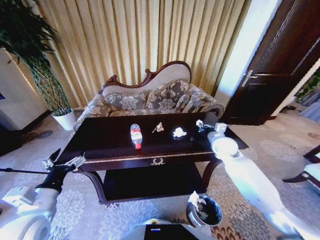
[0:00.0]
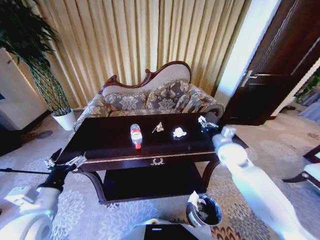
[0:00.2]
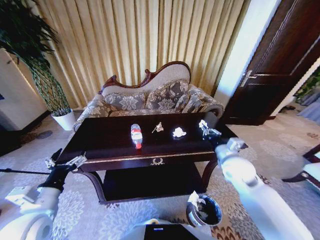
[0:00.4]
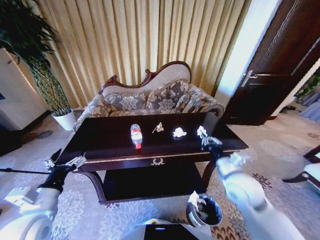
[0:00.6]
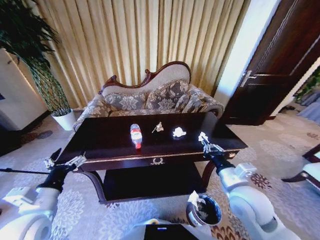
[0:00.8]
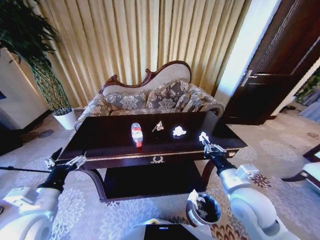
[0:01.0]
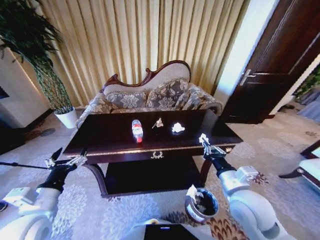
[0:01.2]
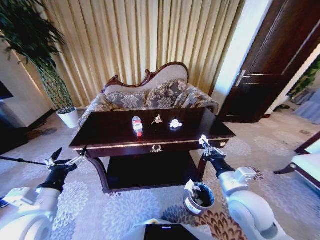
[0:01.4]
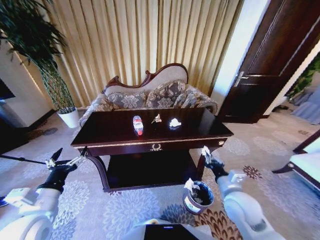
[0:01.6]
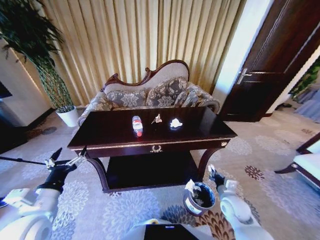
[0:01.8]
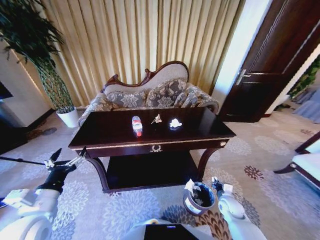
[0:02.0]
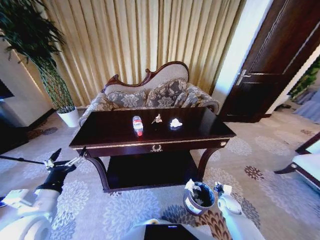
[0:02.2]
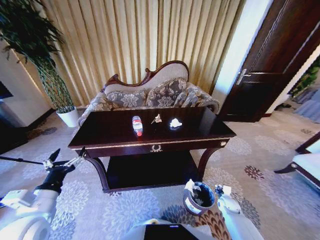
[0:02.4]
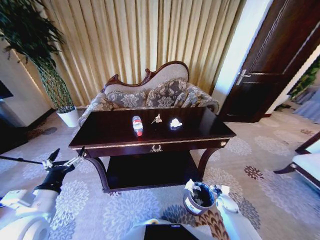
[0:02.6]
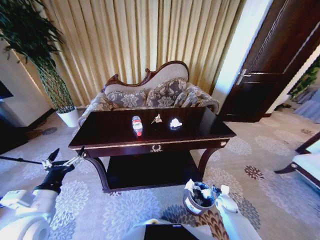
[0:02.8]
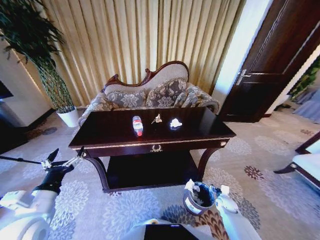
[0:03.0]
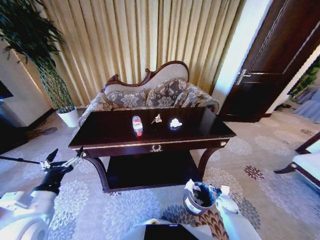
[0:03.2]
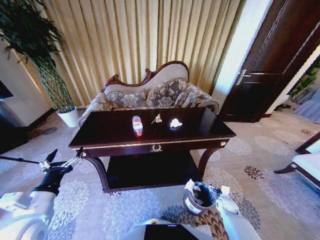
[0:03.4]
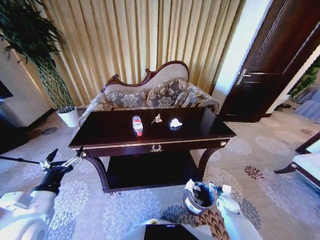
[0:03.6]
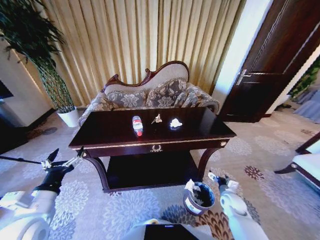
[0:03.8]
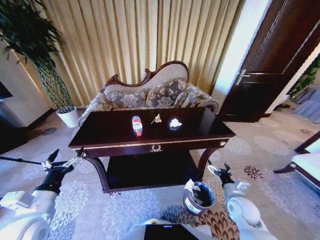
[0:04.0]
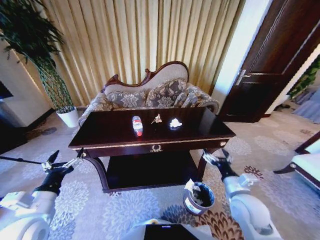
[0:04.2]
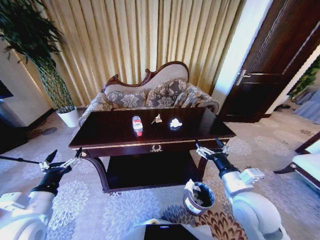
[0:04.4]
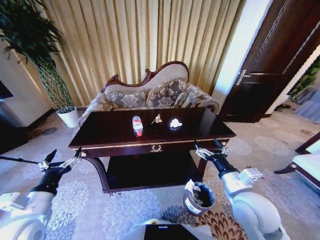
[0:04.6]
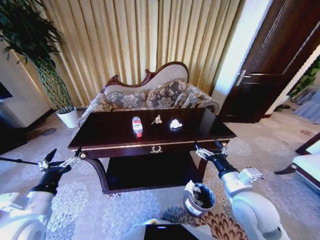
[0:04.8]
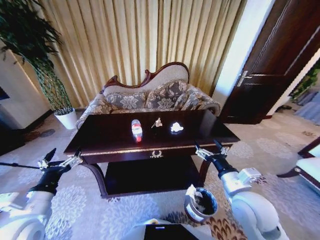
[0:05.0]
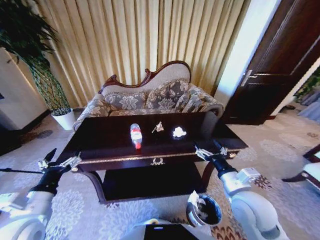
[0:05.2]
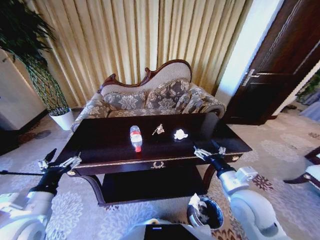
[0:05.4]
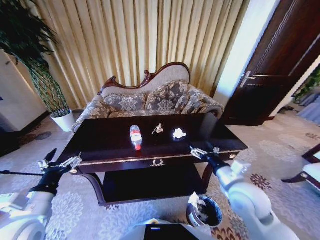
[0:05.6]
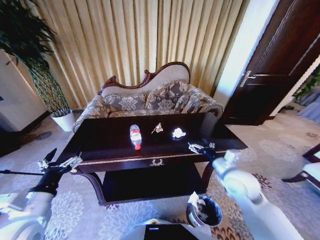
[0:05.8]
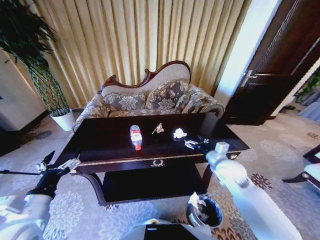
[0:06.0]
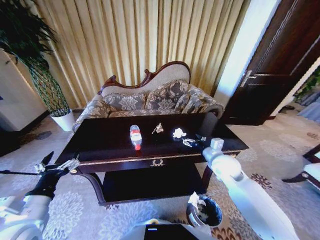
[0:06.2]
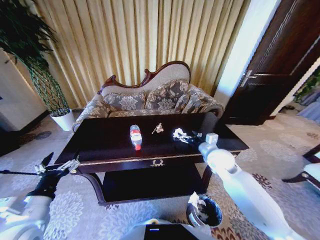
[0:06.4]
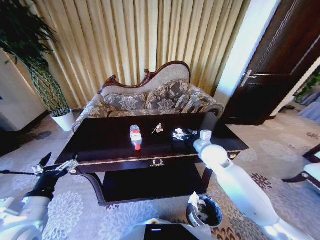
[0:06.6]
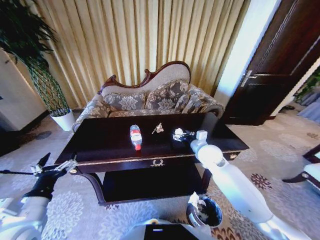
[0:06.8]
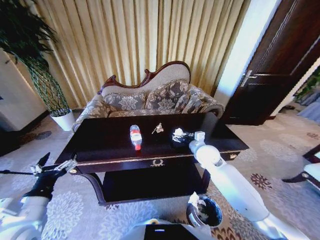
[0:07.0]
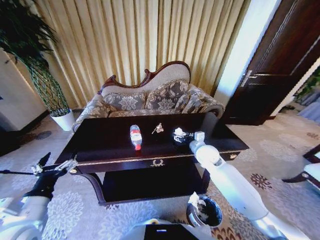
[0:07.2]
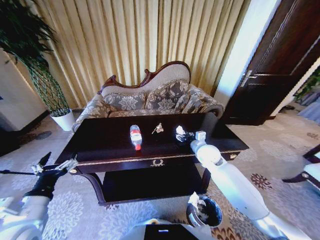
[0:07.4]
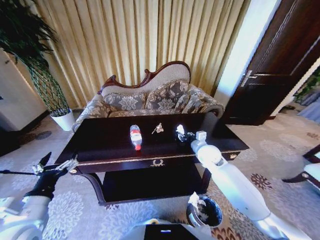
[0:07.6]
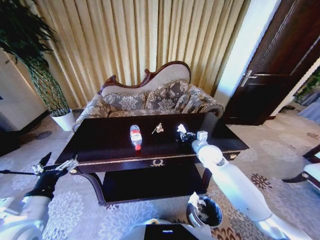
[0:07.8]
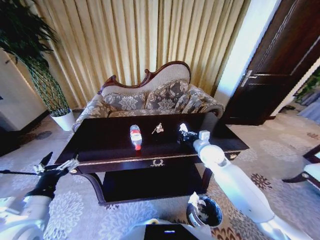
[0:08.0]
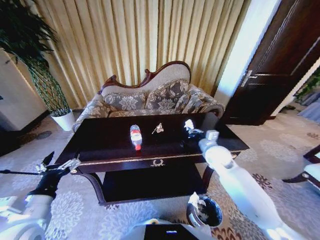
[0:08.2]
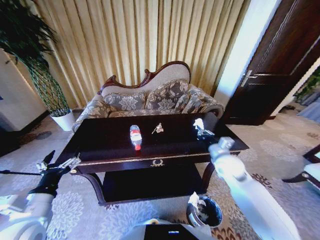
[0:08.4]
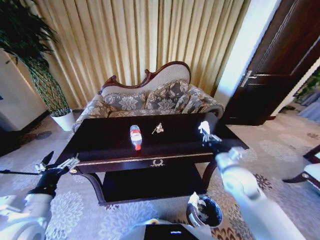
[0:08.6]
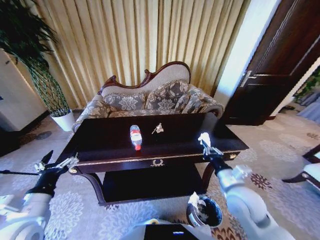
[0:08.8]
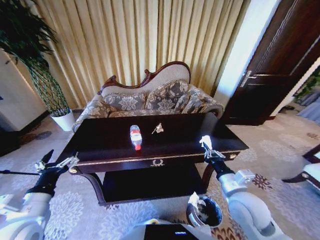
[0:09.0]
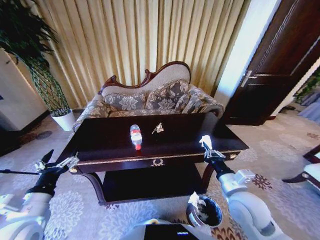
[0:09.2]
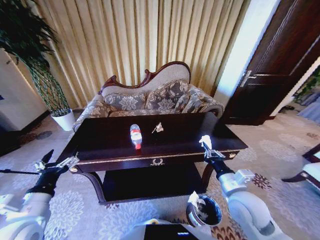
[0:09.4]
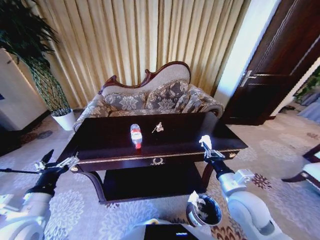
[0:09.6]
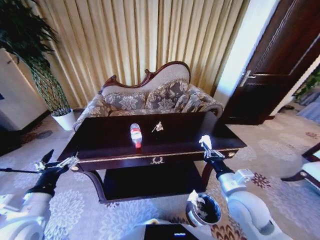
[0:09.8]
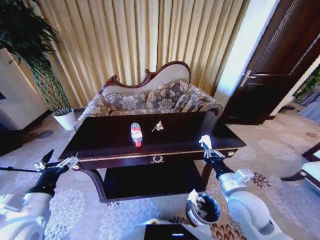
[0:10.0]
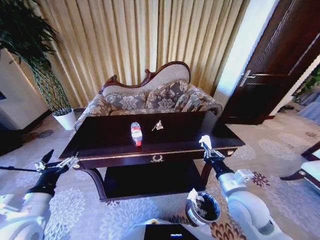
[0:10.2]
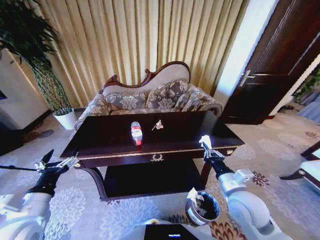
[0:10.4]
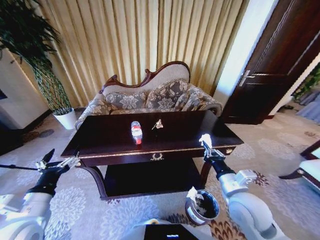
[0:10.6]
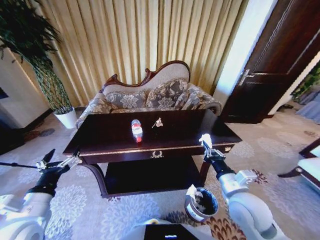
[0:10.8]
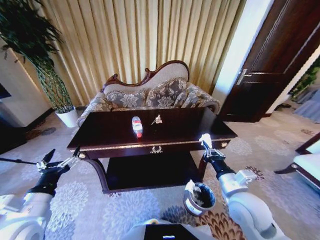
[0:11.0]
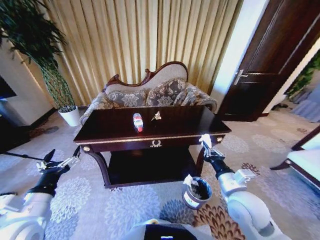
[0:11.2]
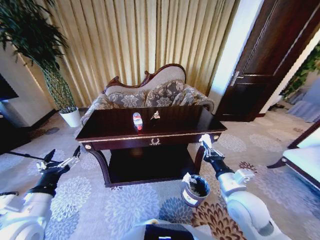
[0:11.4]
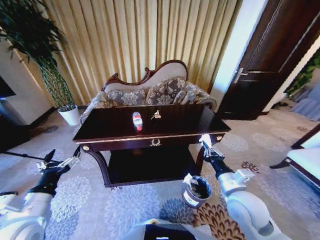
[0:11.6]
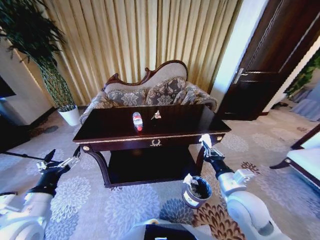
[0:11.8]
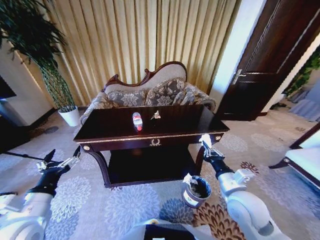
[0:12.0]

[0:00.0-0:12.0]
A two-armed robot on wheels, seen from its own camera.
Task of the whole recording: Move to the front of the table and place the trash on the table into the trash bin.
0:00.0 to 0:01.6: The right gripper travels backward by approximately 20 cm.
0:01.6 to 0:03.0: The right gripper travels downward and to the right by some 30 cm, and opens.
0:03.0 to 0:04.4: The right gripper goes approximately 35 cm upward.
0:04.4 to 0:06.0: The right gripper is displaced forward by some 15 cm.
0:06.0 to 0:07.6: The right gripper heads forward, covering approximately 10 cm, and closes its fingers.
0:07.6 to 0:09.0: The right gripper travels backward by roughly 20 cm, and closes up.
0:09.0 to 0:10.4: Neither gripper changes place.

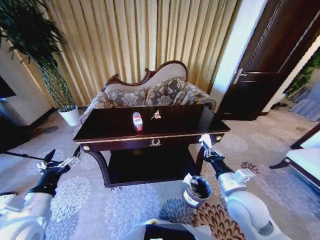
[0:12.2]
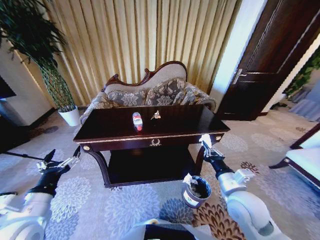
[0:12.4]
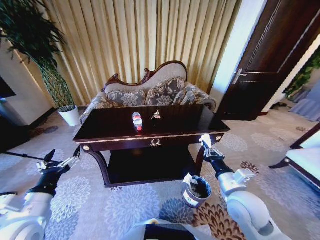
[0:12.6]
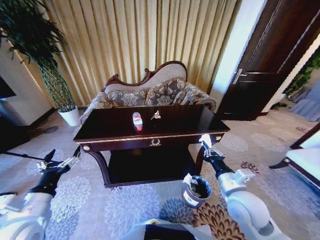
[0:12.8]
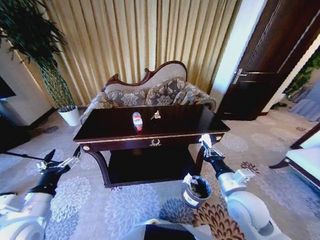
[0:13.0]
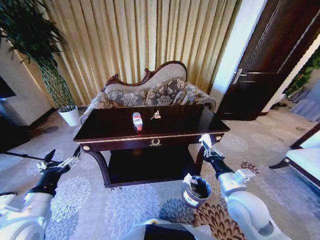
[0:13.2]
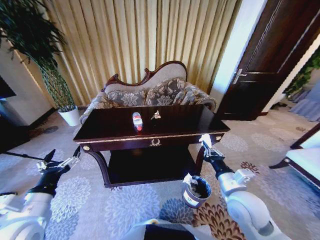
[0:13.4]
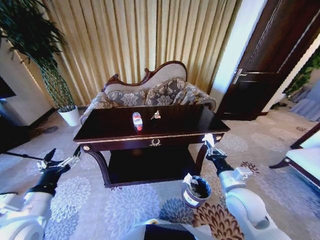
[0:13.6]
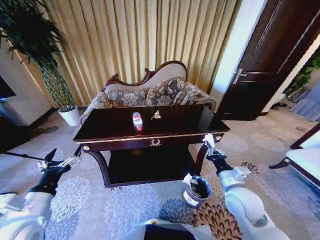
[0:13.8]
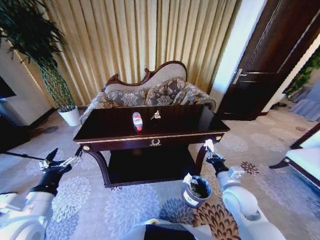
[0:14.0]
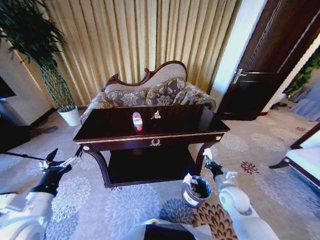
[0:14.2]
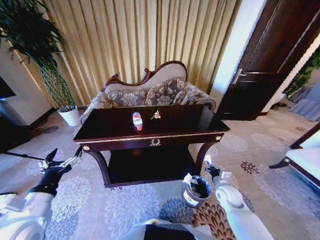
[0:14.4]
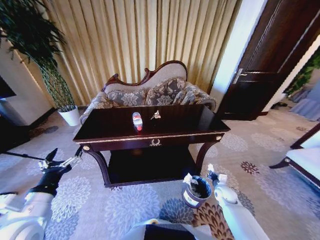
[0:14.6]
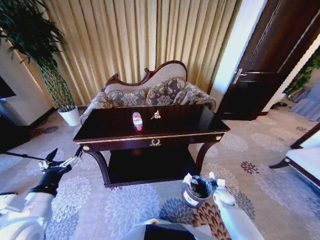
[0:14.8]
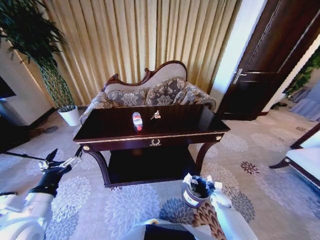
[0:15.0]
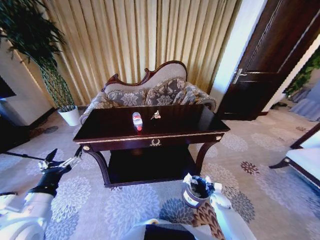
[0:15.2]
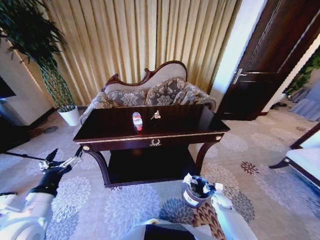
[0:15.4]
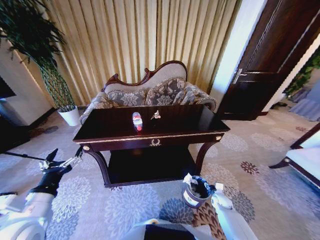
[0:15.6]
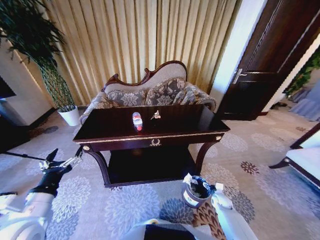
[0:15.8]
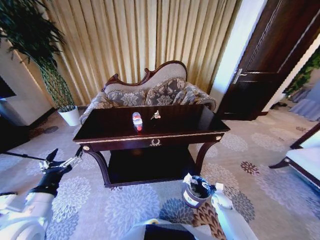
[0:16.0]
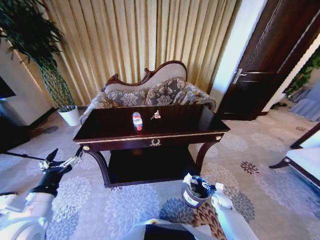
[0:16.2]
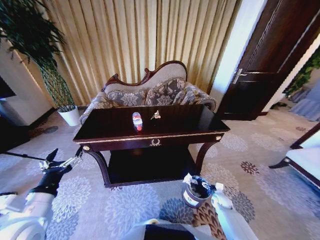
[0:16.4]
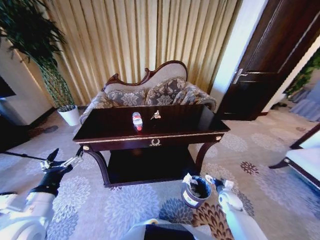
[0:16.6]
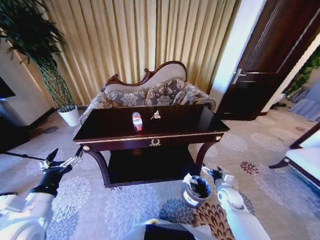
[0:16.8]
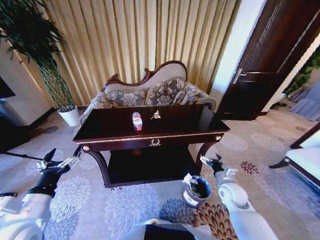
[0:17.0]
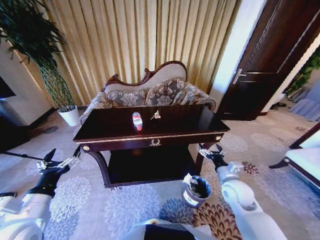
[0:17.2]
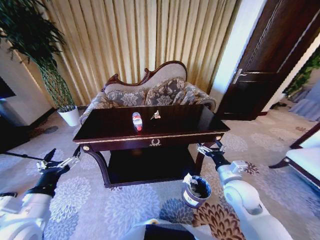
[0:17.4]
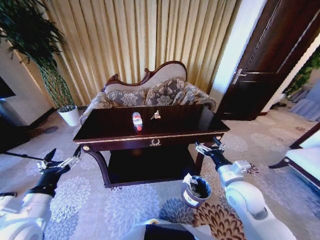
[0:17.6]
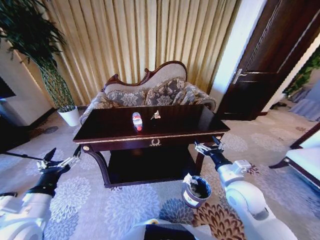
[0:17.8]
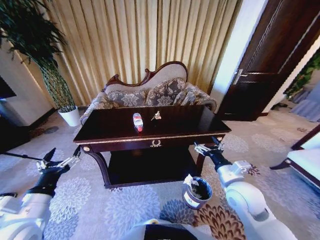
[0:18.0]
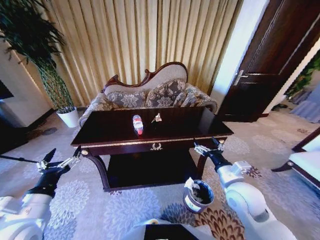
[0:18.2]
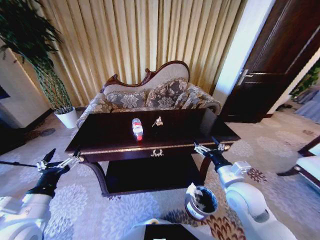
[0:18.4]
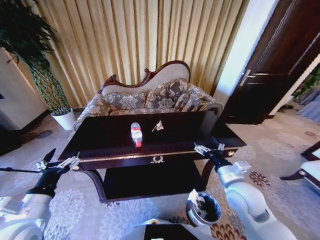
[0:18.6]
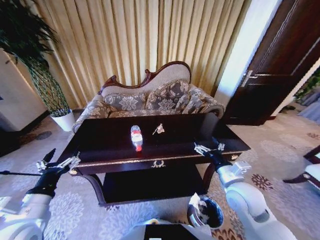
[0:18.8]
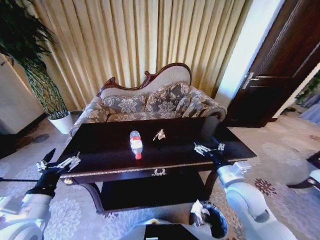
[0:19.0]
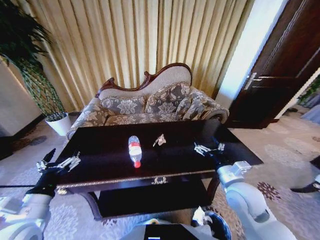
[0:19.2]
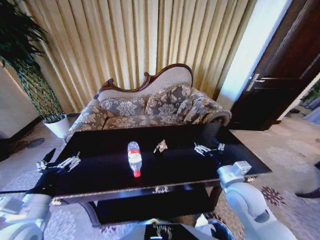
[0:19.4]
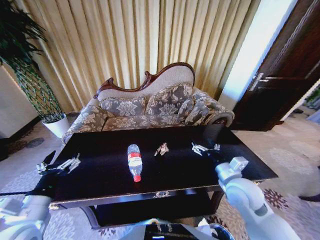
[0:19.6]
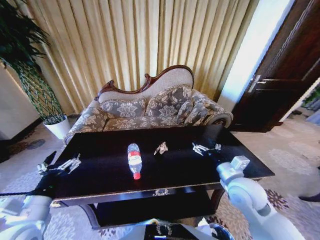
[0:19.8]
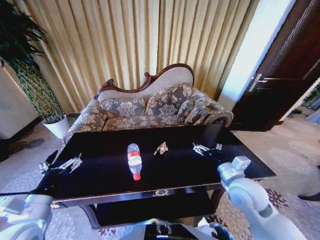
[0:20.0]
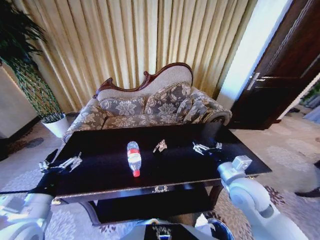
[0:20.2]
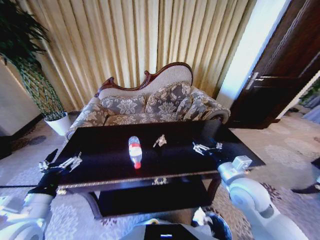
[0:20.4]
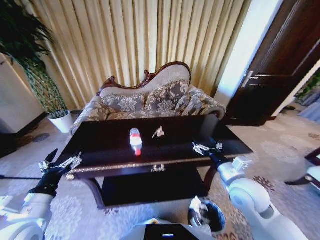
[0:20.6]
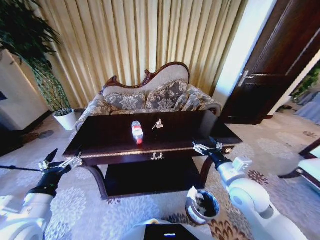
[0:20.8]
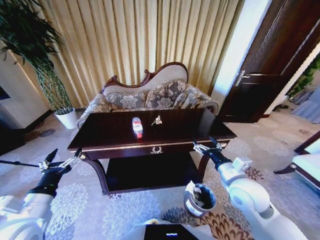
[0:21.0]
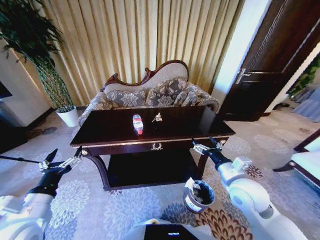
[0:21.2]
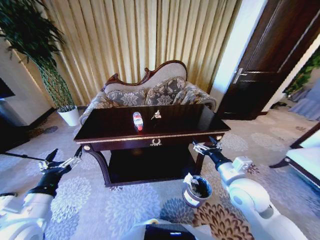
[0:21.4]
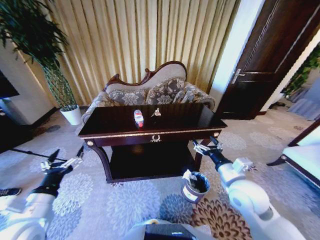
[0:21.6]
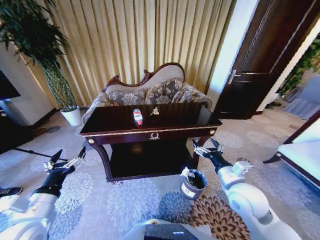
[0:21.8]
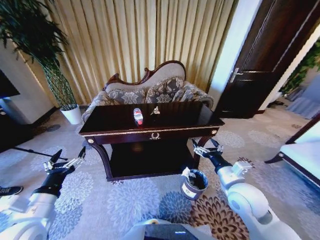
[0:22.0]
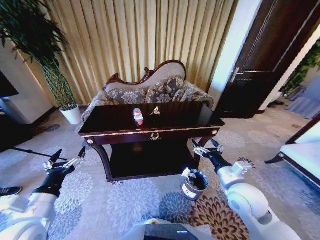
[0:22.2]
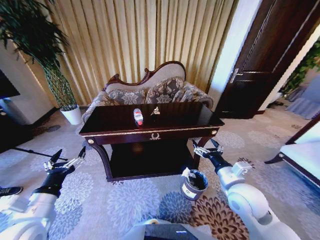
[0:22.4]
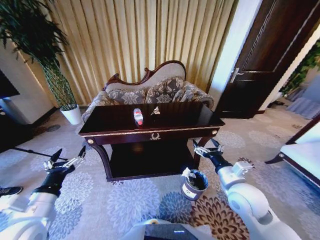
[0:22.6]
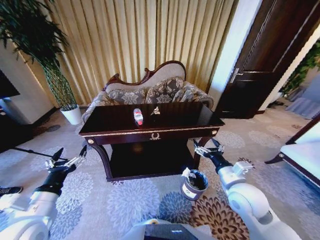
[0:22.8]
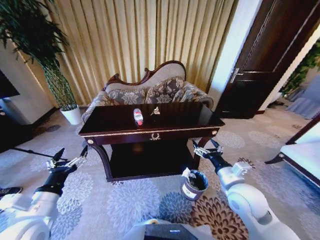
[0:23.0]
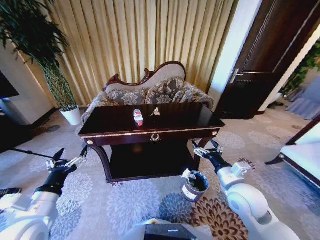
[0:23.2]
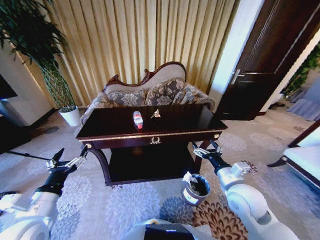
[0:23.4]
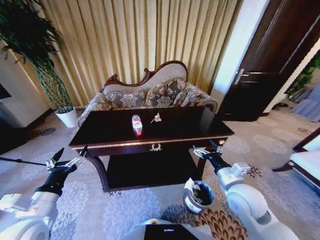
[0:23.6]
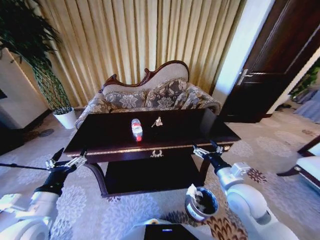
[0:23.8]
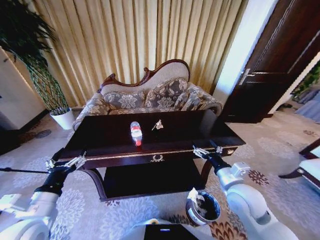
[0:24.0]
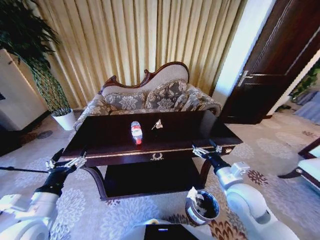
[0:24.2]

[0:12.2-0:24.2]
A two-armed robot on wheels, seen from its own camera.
Task of the whole recording: Move to the front of the table and place the trash on the table into the trash bin.
0:12.2 to 0:13.8: There are only small adjustments of the grippers.
0:13.8 to 0:15.2: The right gripper is displaced downward by about 30 cm.
0:15.2 to 0:16.6: The right gripper opens.
0:16.6 to 0:18.2: The right gripper travels upward and to the left by about 30 cm.
